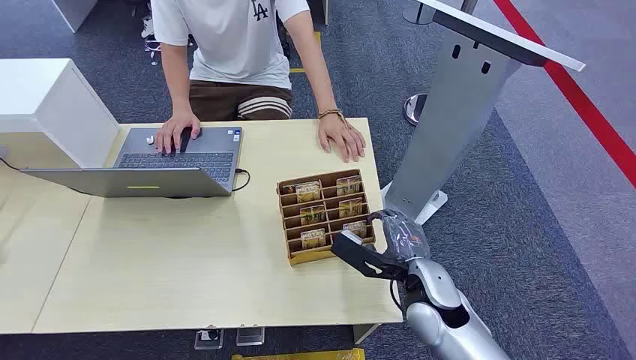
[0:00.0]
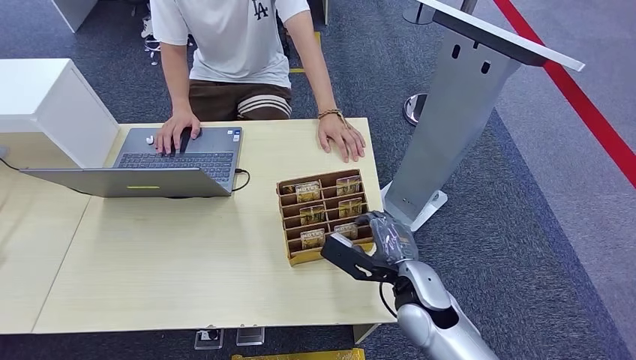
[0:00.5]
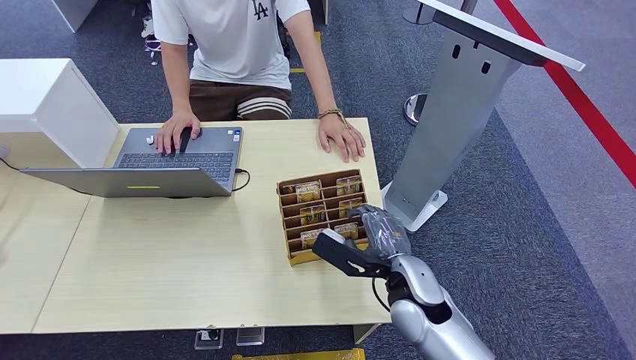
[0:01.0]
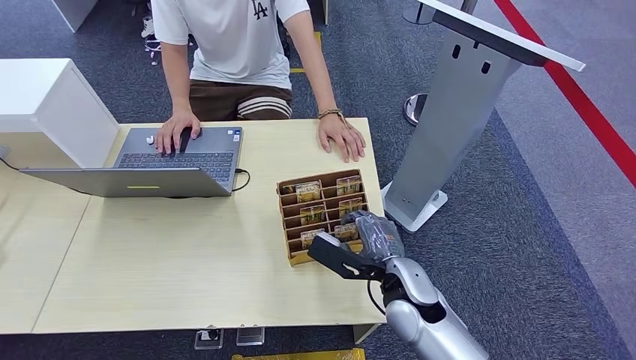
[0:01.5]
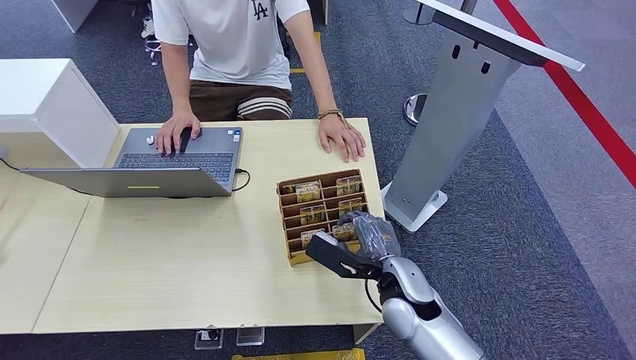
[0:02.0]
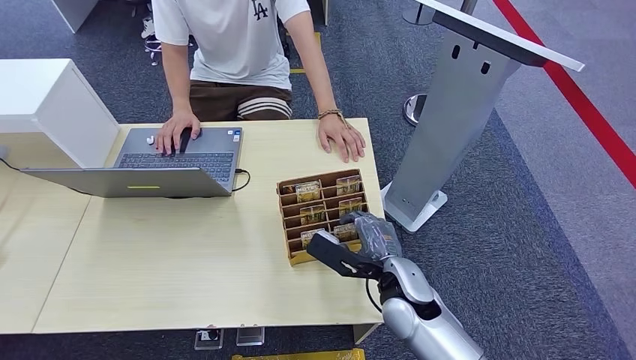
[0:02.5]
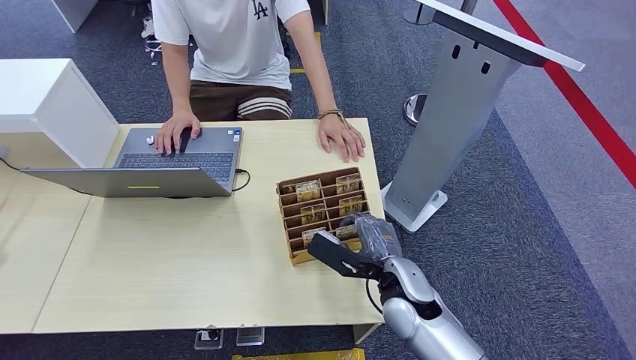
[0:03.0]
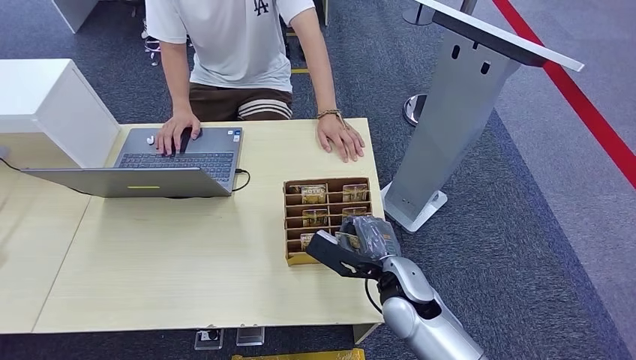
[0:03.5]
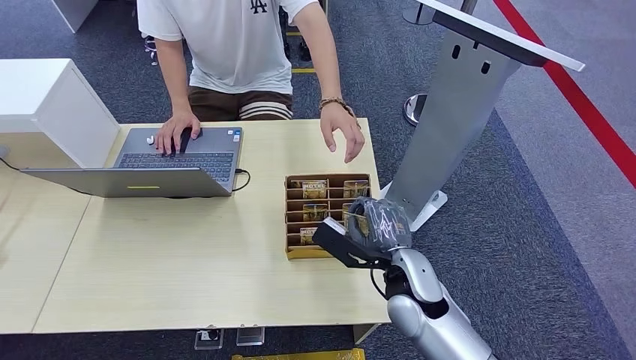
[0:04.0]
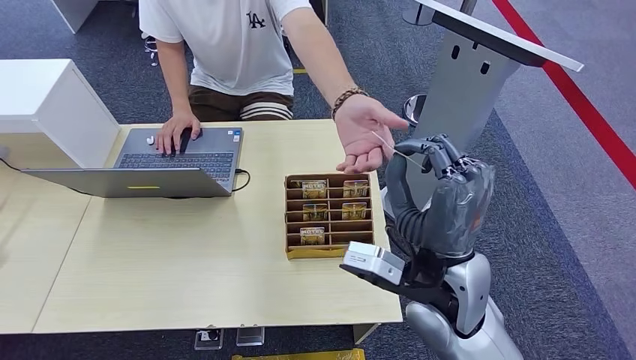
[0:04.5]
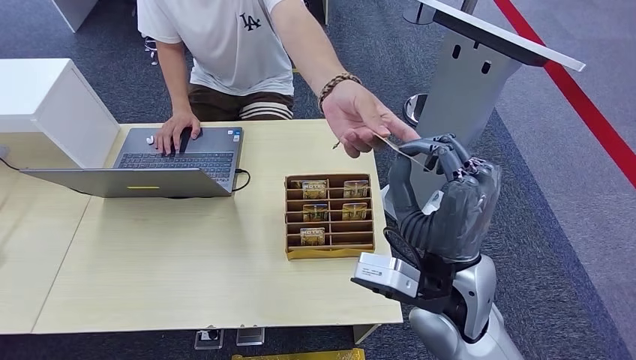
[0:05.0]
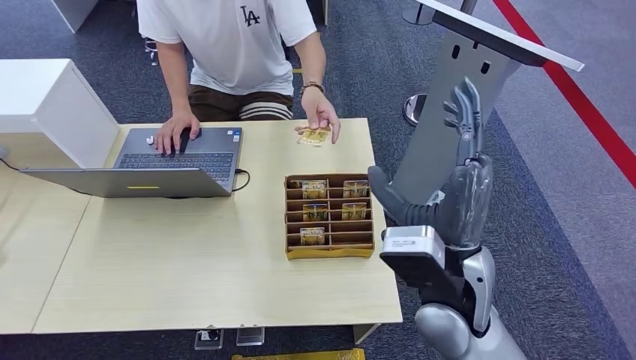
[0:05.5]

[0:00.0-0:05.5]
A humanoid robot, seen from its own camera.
Step, 0:00.0 to 0:04.0: Pick up the key card from the card box.
Step, 0:04.5 to 0:05.5: Hand the key card to the target.
0:02.0 to 0:03.5: Neither hand changes place.
0:03.5 to 0:05.5: The right hand heads upward, covering some 15 cm.
